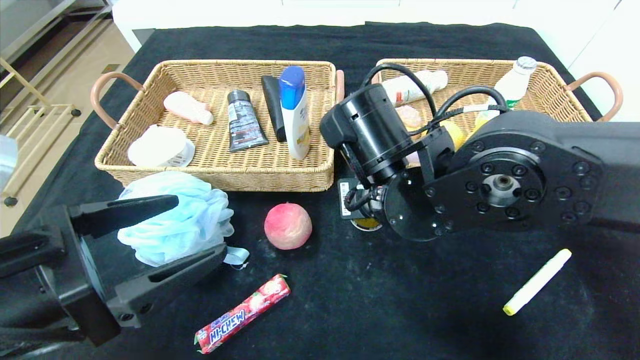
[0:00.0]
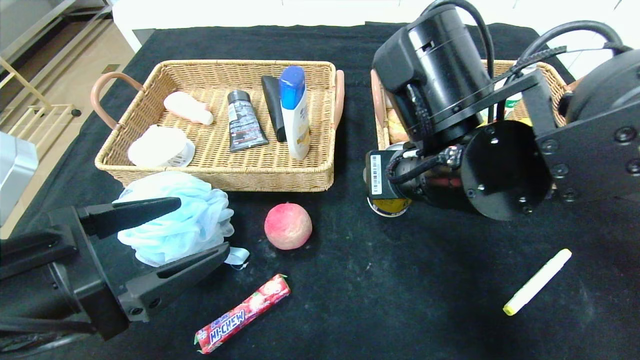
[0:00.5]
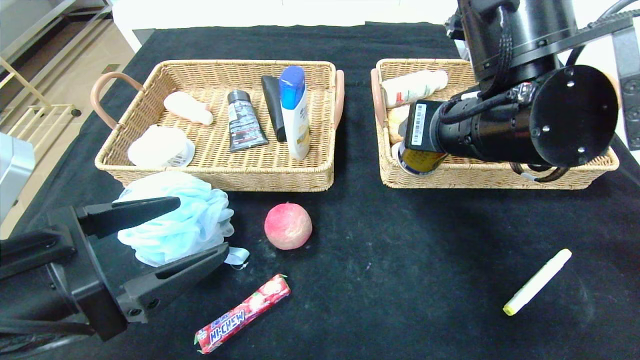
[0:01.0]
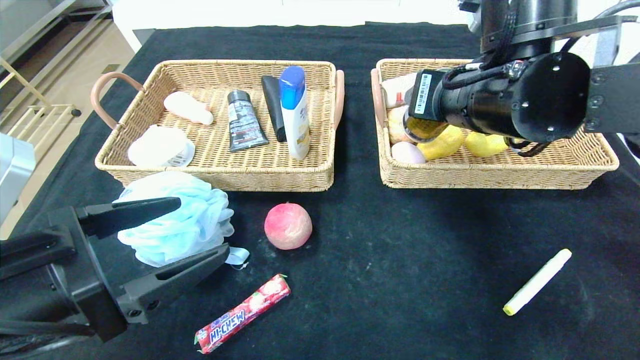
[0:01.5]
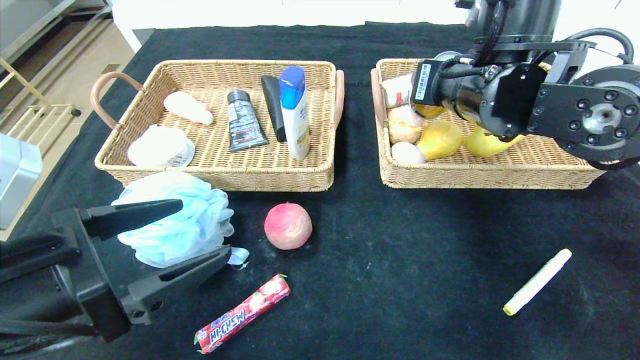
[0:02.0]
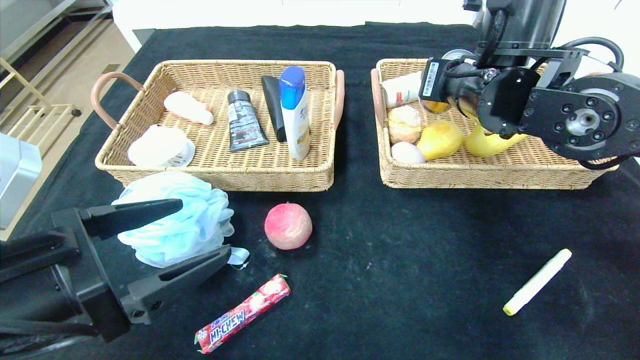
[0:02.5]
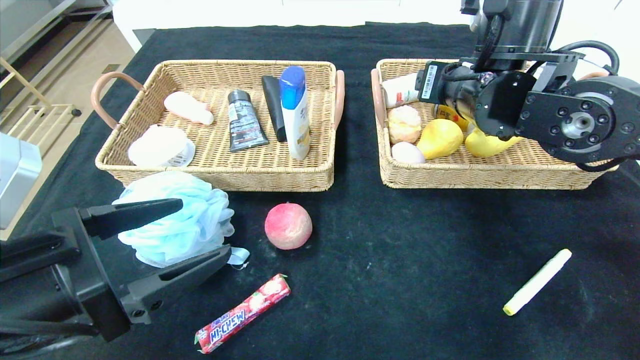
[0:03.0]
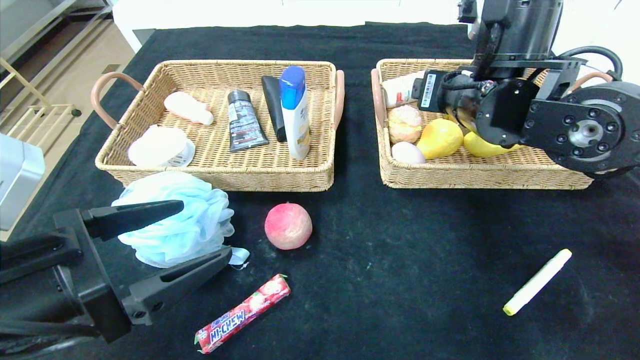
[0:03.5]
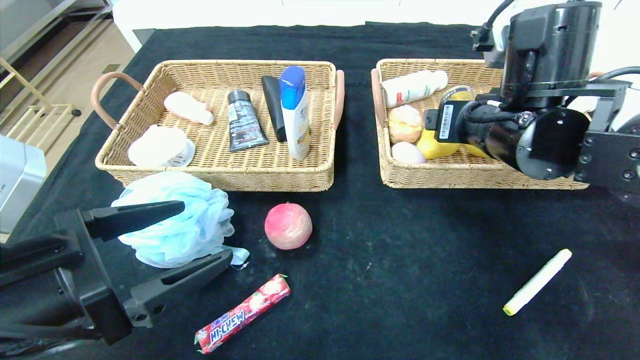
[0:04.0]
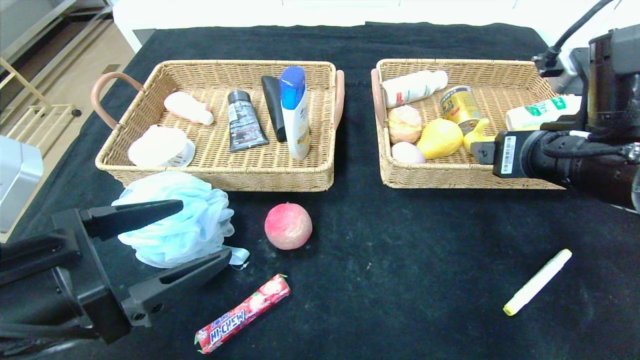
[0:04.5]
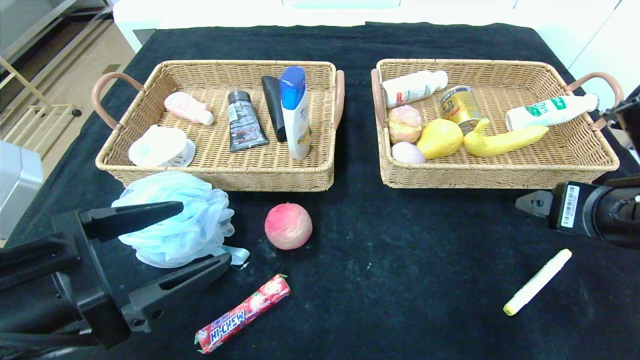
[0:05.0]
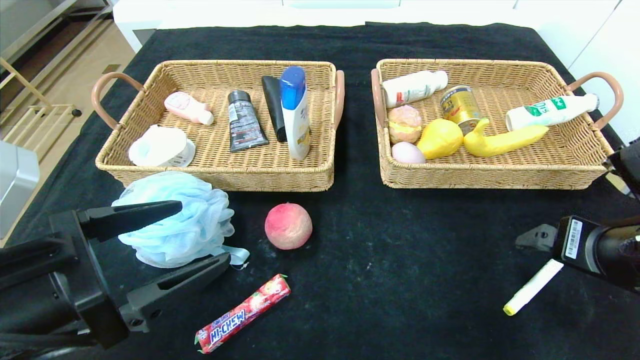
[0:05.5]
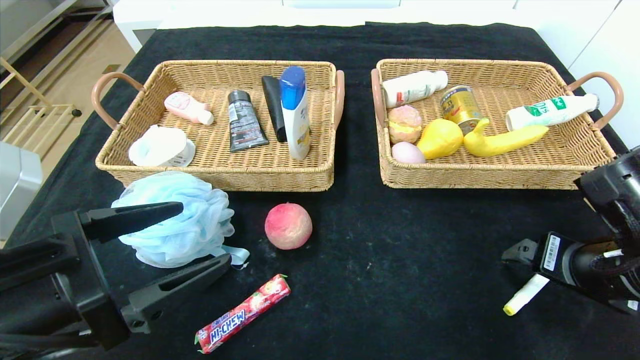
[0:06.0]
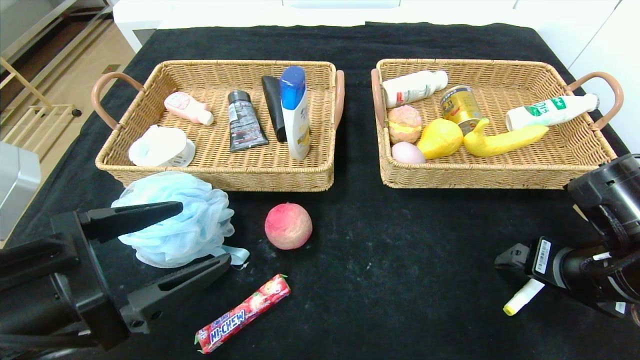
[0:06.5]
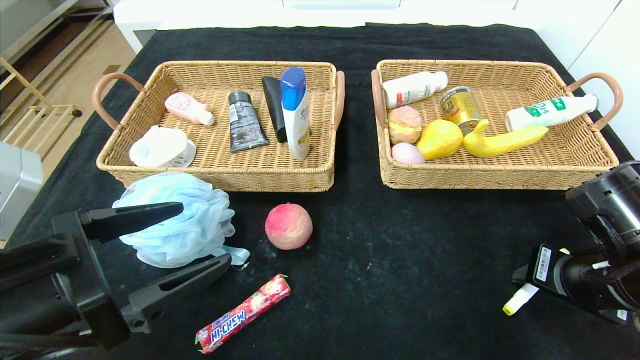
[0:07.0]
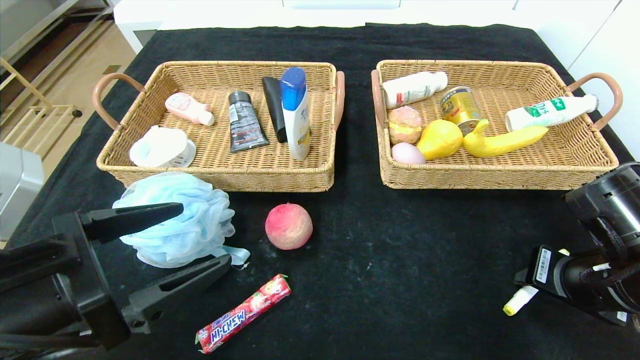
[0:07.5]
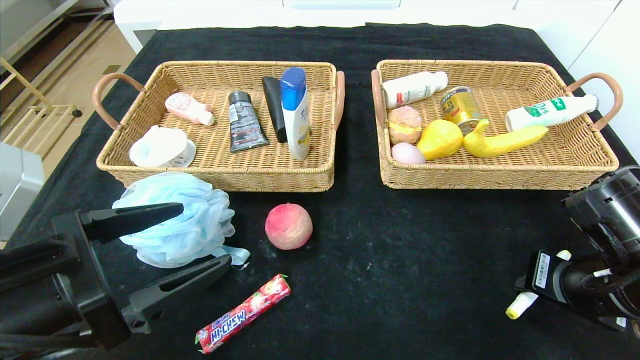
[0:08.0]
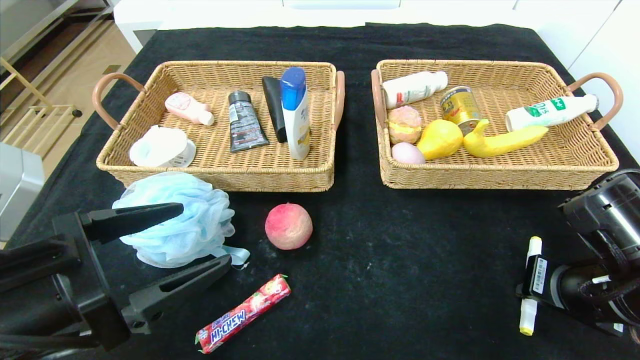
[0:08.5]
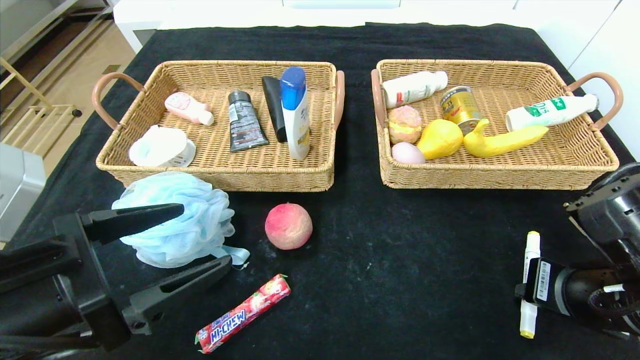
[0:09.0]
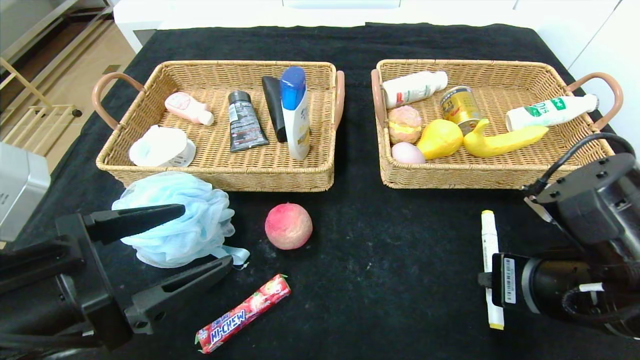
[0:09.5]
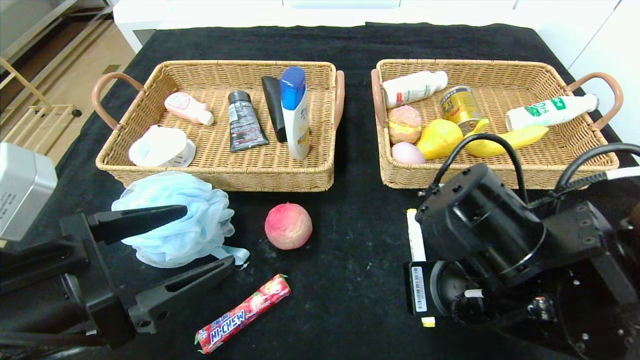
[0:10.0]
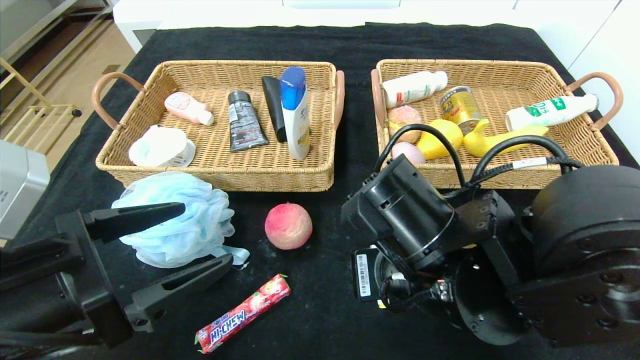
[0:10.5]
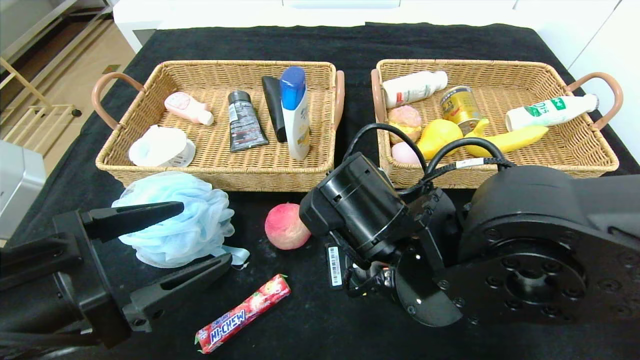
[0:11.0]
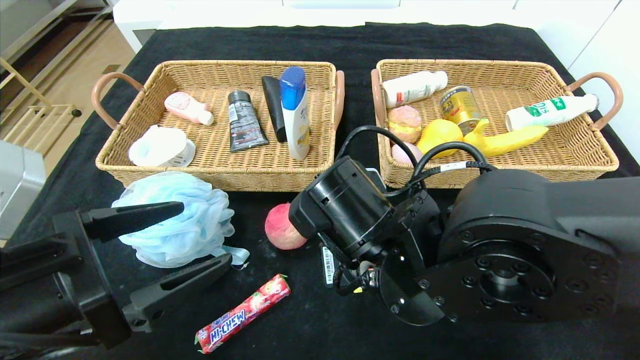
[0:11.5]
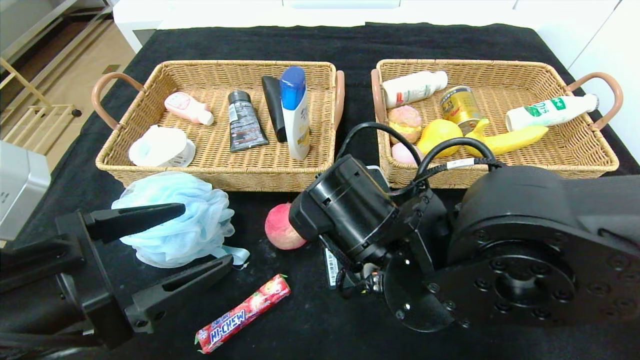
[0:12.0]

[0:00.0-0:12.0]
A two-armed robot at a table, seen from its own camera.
Step, 0:00.0 to 0:04.0: Grasp the red bull and put it in the right basket.
0:00.0 to 0:02.0: The right gripper is displaced to the right, upward and forward by some 15 cm.
0:02.0 to 0:04.0: The right gripper moves roughly 5 cm.
0:04.0 to 0:06.0: The right gripper shifts approximately 15 cm to the right, downward and backward.
0:06.0 to 0:08.0: The right gripper closes up.
0:08.0 to 0:10.0: The right gripper shifts roughly 15 cm to the left.
0:10.0 to 0:12.0: The right gripper shifts roughly 10 cm to the left, and opens its fingers.

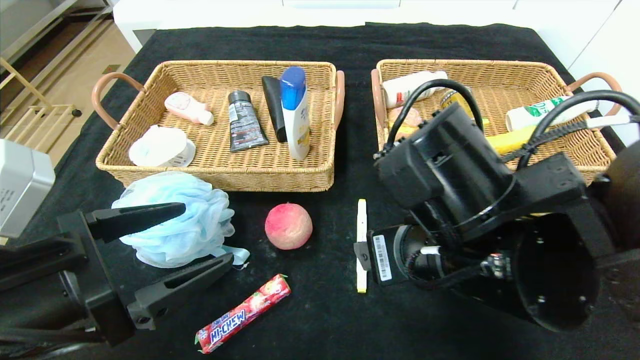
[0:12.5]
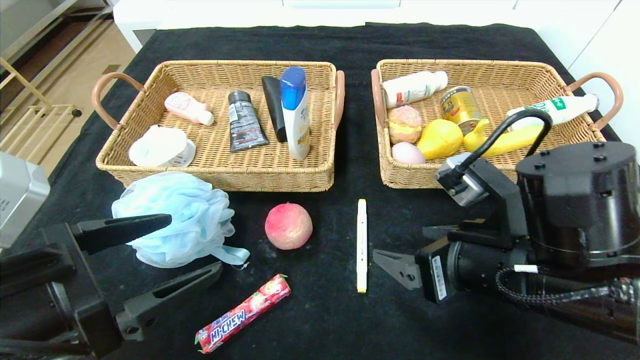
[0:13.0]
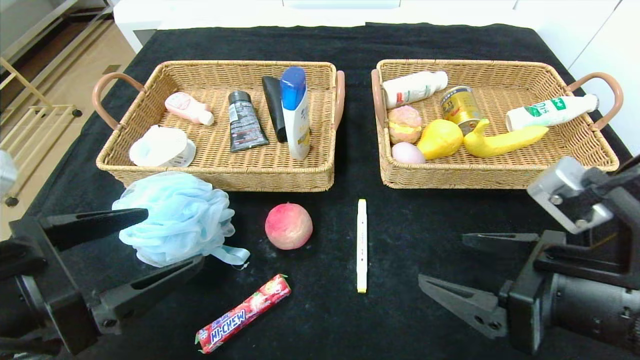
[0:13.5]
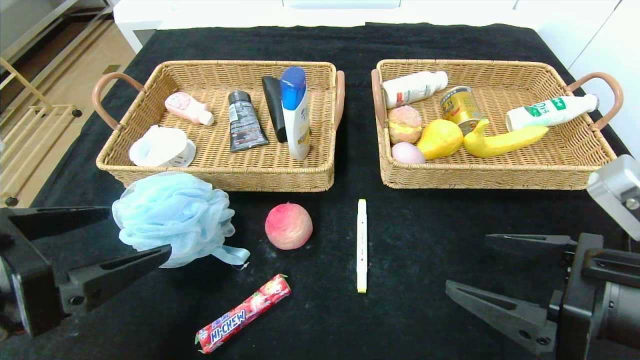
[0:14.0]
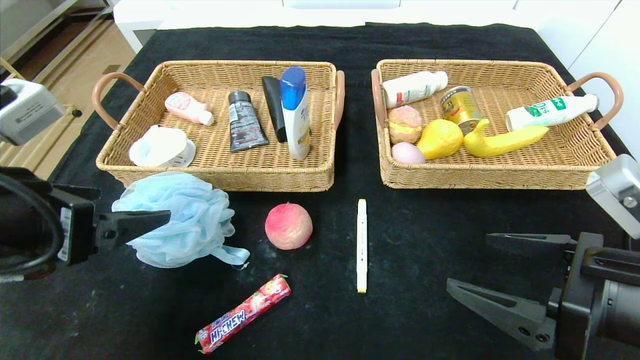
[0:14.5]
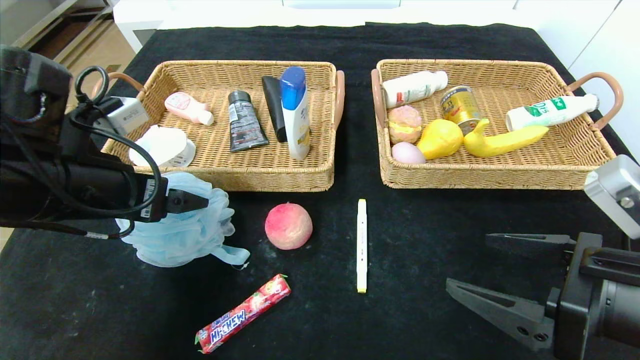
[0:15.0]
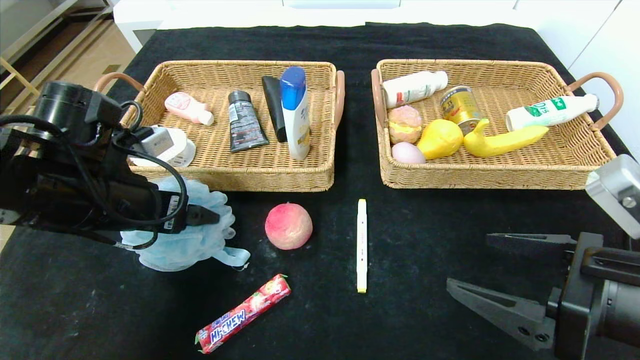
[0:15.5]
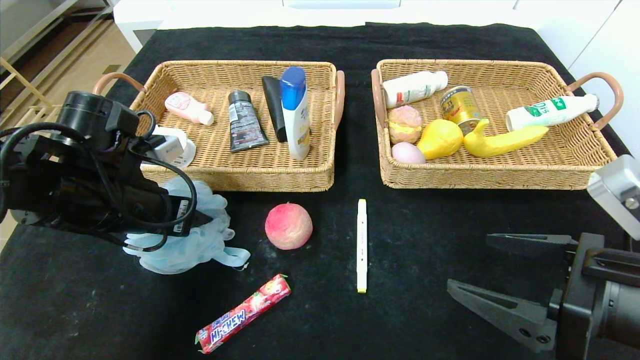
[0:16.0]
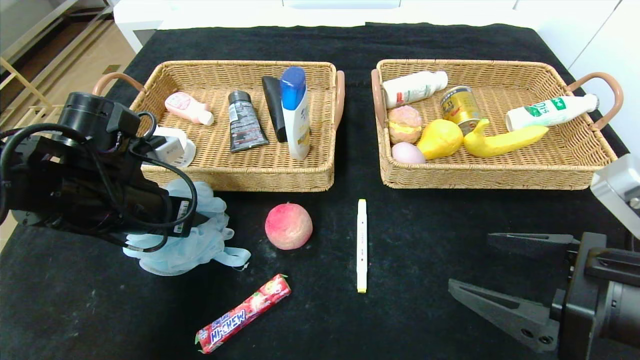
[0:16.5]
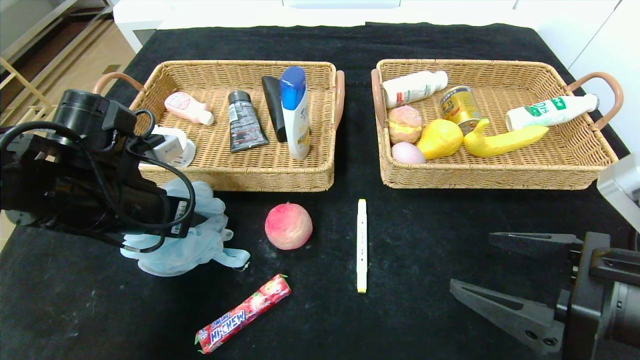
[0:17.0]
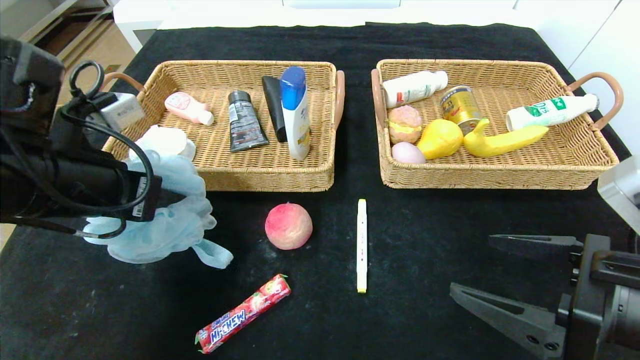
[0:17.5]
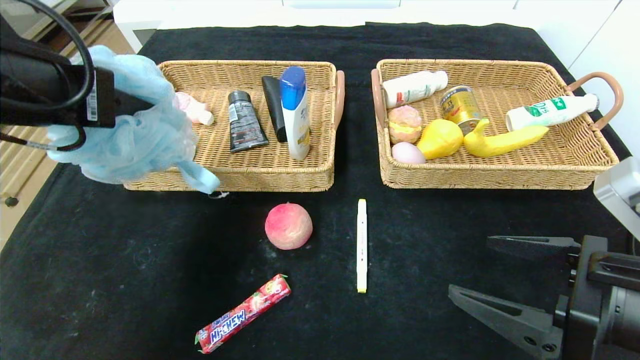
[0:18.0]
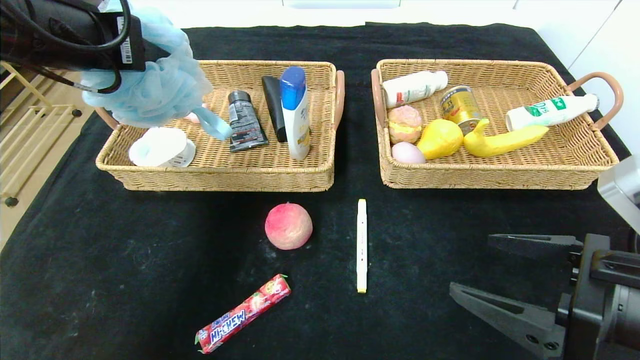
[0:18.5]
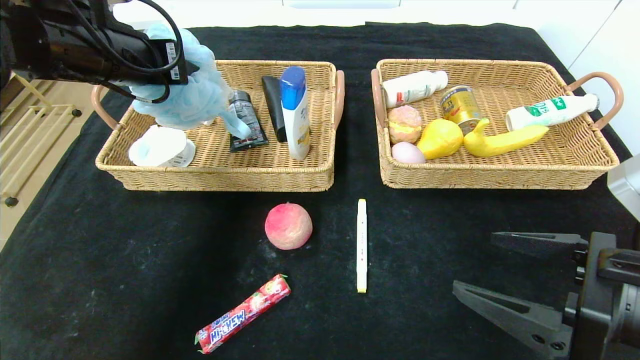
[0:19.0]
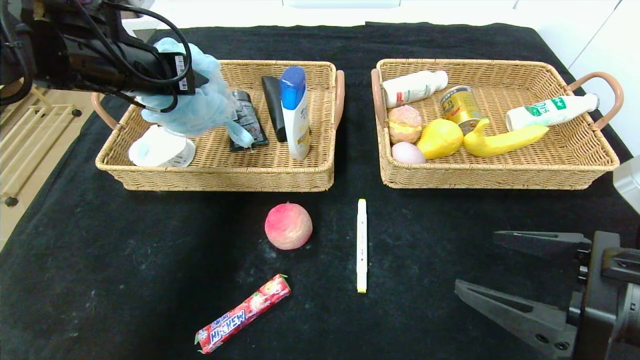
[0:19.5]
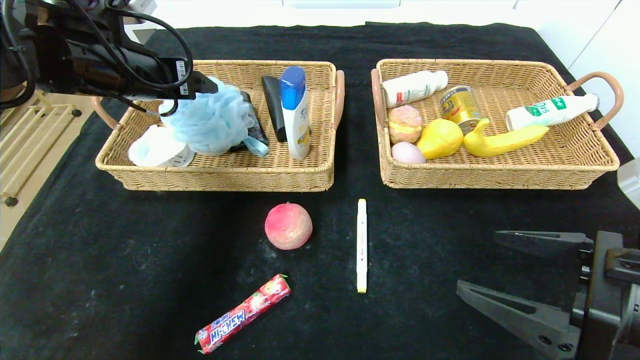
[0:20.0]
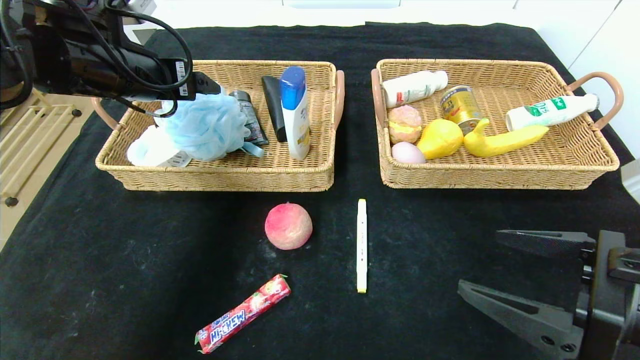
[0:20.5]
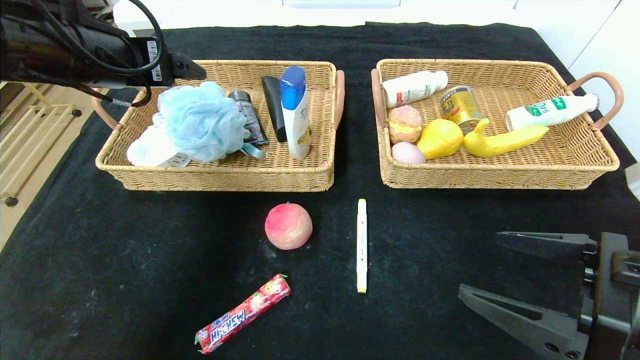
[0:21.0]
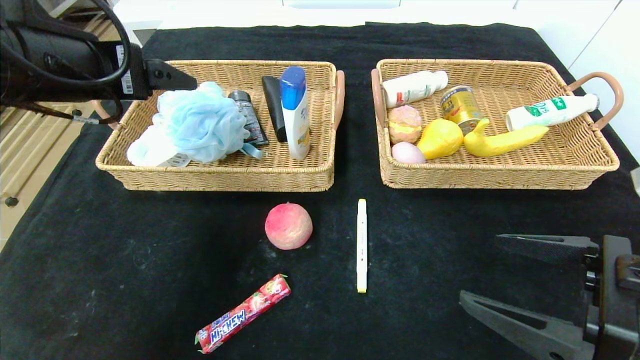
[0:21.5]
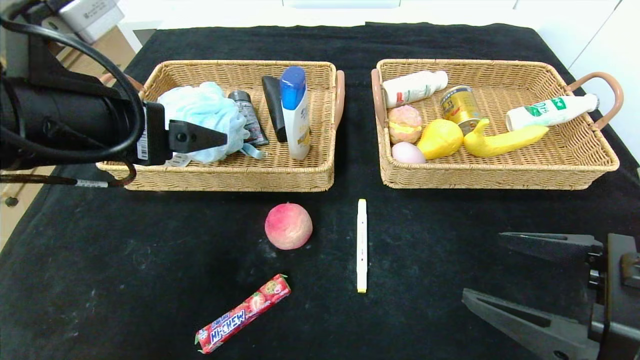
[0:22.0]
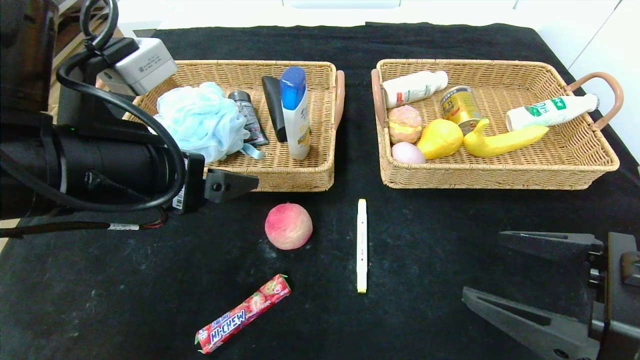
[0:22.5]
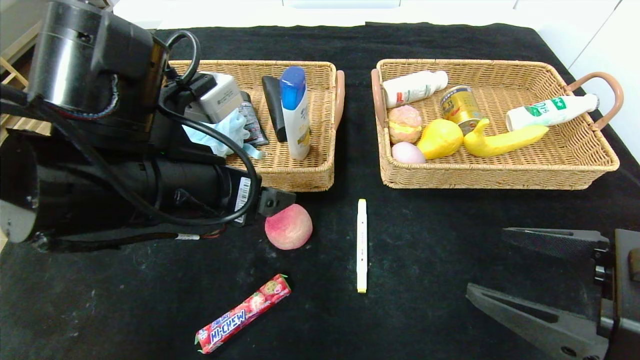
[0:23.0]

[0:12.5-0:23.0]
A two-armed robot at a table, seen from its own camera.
Step, 0:13.5 to 0:20.5: Grasp the bath ball and put it in the left basket.
0:12.5 to 0:14.5: The right gripper shifts roughly 15 cm to the right. The left gripper is displaced upward by about 5 cm.
0:14.5 to 0:16.5: The left gripper heads forward and downward, covering approximately 15 cm, and closes its fingers.
0:16.5 to 0:19.0: The left gripper shifts roughly 15 cm upward and forward.
0:19.0 to 0:21.0: The left gripper opens.
0:21.0 to 0:23.0: The left gripper goes approximately 15 cm to the right, backward and downward.
